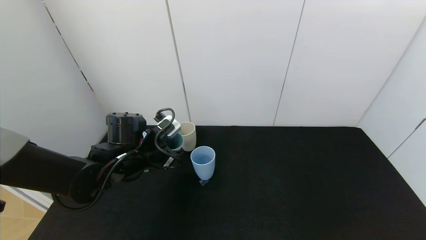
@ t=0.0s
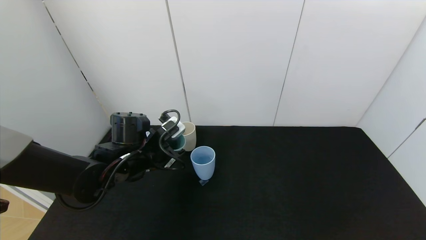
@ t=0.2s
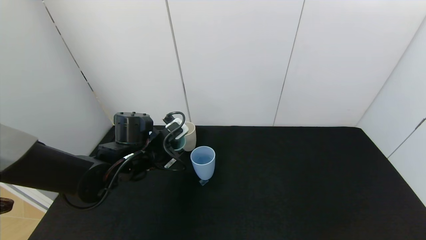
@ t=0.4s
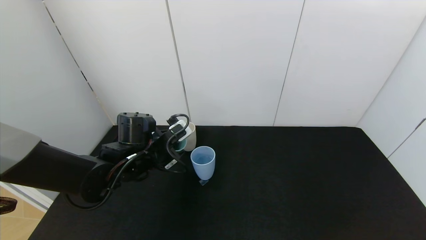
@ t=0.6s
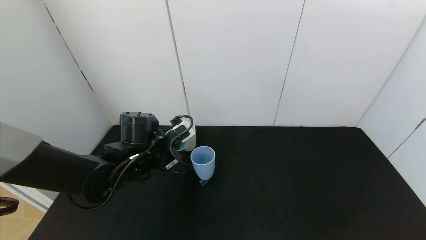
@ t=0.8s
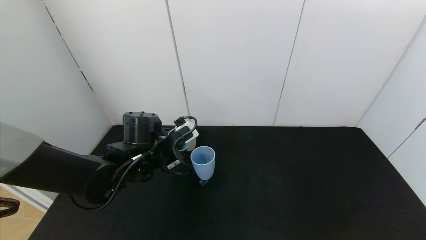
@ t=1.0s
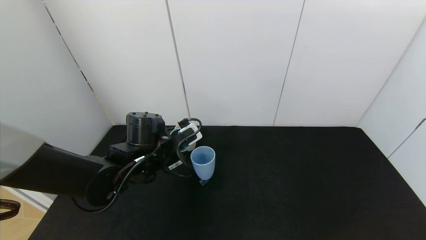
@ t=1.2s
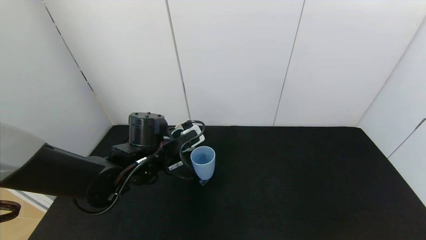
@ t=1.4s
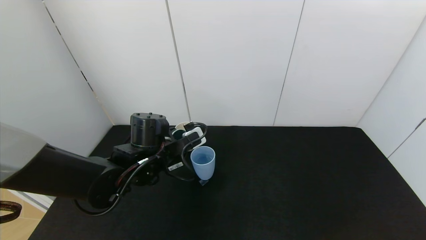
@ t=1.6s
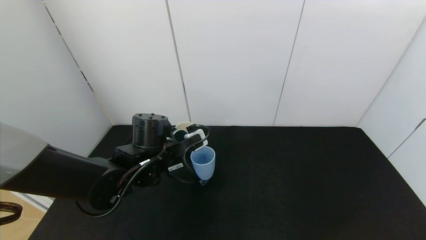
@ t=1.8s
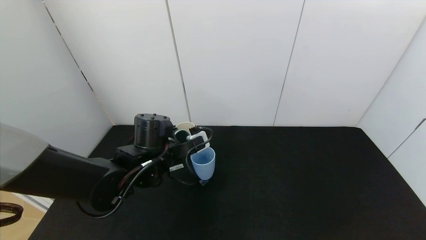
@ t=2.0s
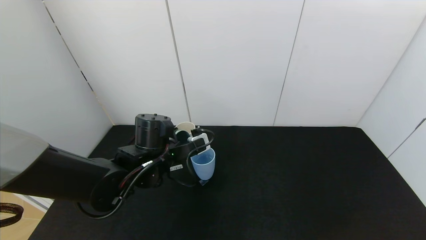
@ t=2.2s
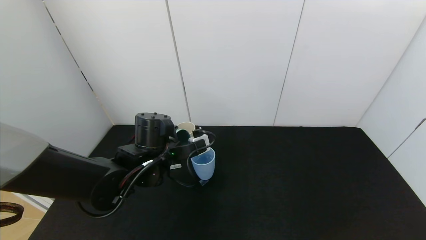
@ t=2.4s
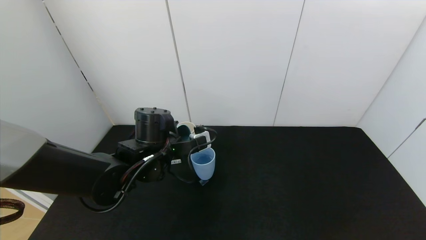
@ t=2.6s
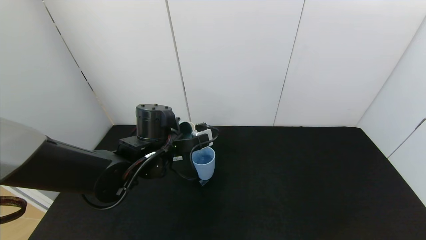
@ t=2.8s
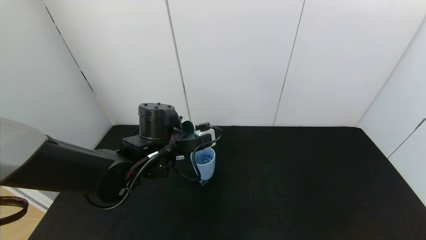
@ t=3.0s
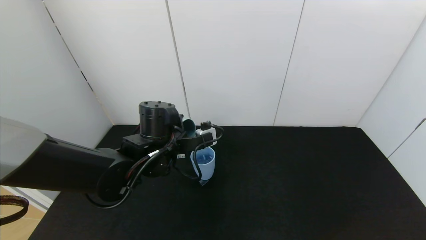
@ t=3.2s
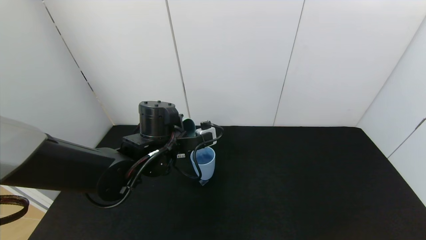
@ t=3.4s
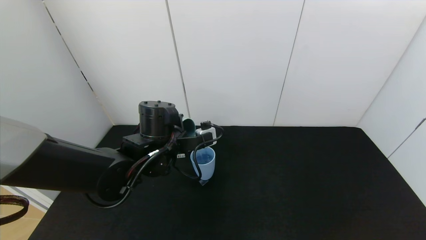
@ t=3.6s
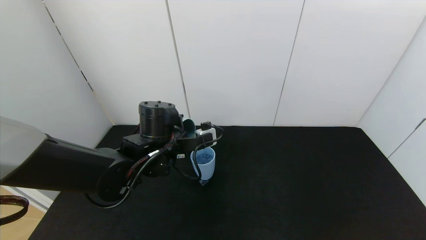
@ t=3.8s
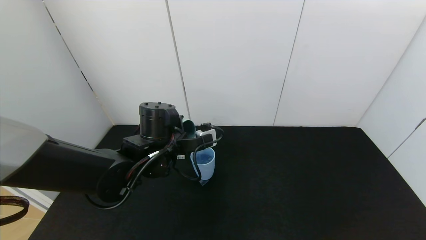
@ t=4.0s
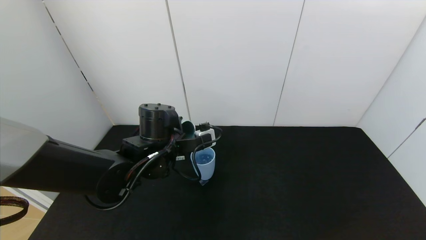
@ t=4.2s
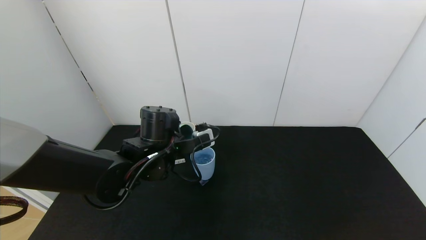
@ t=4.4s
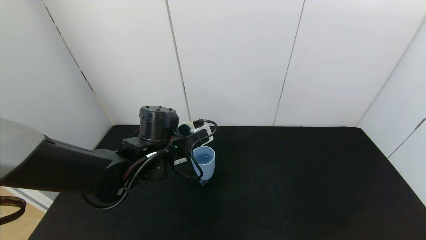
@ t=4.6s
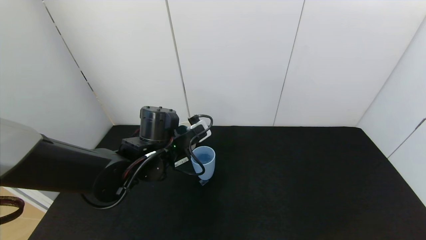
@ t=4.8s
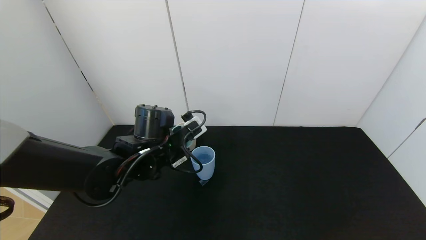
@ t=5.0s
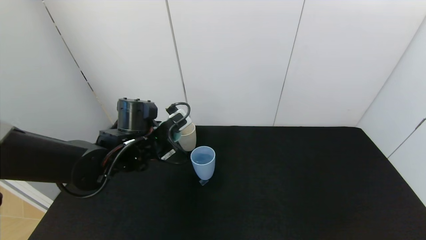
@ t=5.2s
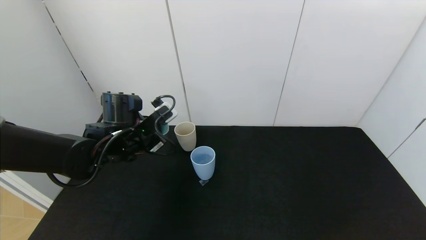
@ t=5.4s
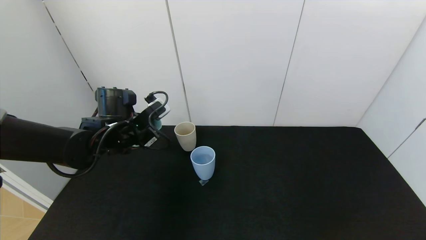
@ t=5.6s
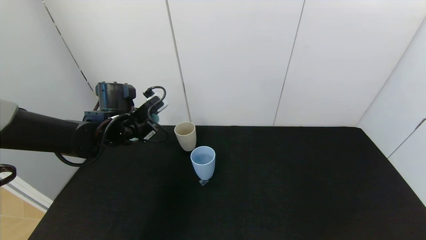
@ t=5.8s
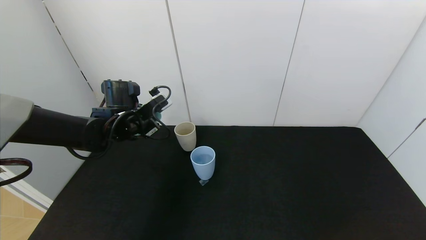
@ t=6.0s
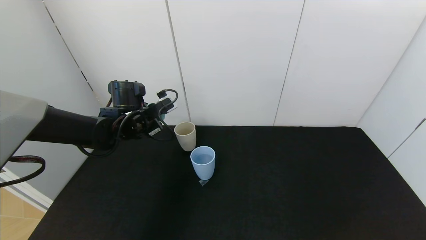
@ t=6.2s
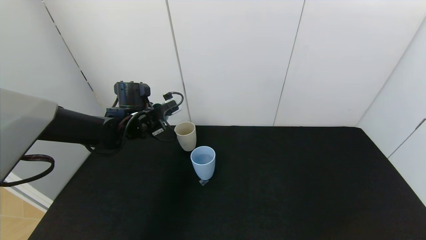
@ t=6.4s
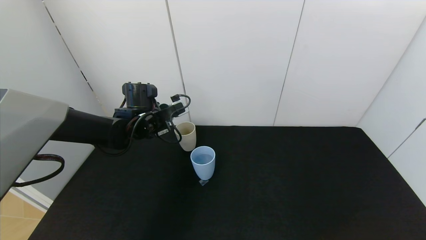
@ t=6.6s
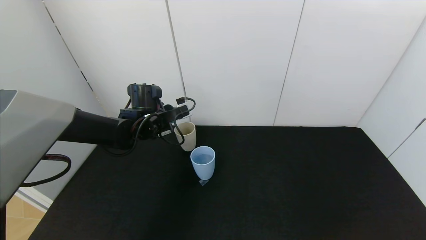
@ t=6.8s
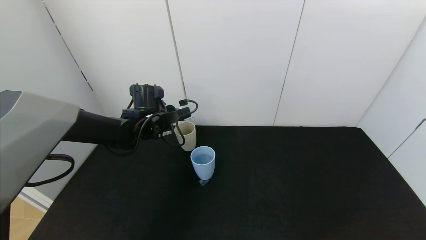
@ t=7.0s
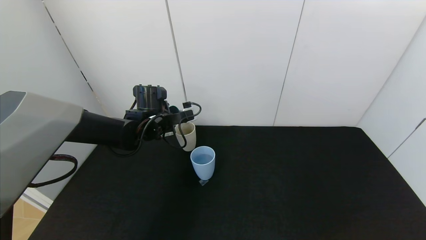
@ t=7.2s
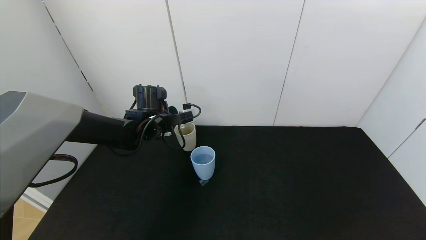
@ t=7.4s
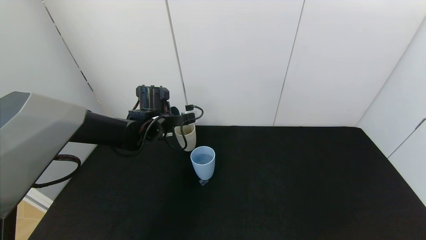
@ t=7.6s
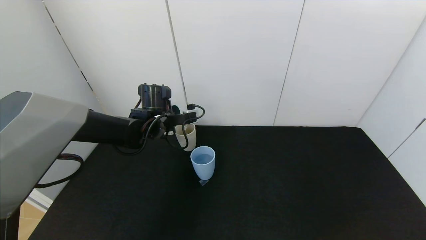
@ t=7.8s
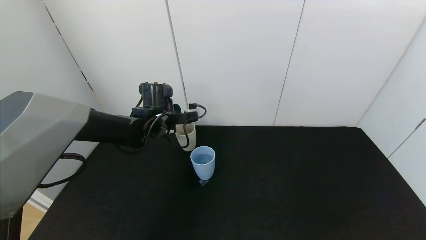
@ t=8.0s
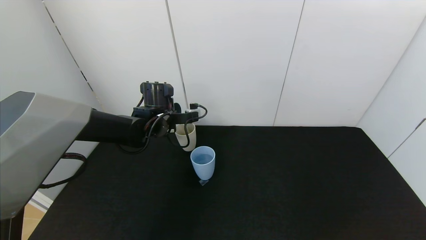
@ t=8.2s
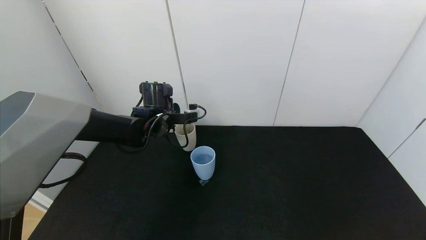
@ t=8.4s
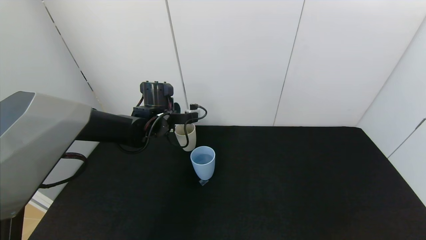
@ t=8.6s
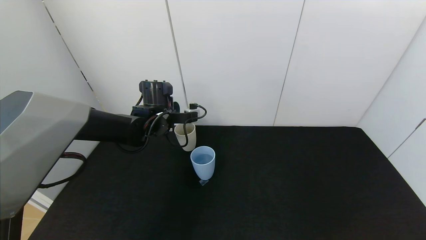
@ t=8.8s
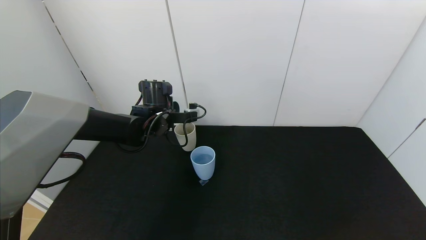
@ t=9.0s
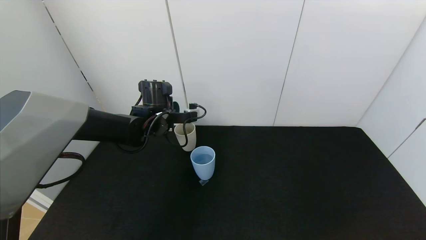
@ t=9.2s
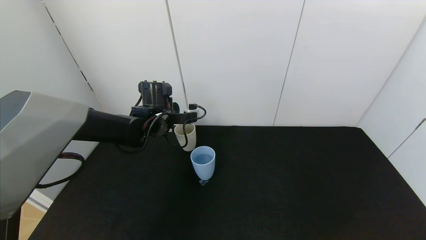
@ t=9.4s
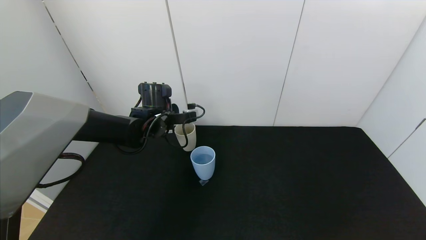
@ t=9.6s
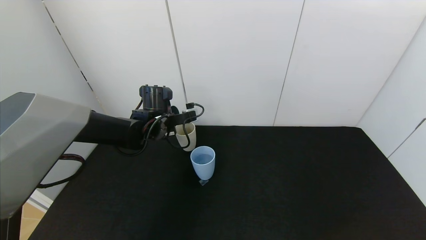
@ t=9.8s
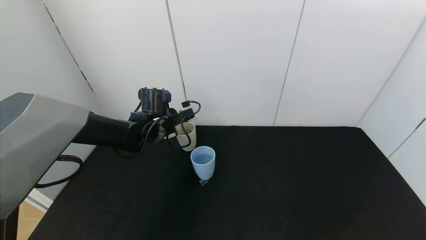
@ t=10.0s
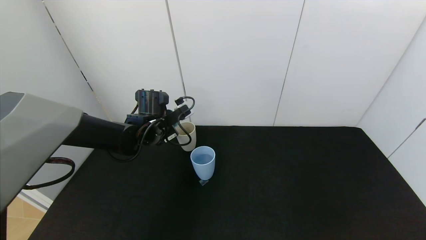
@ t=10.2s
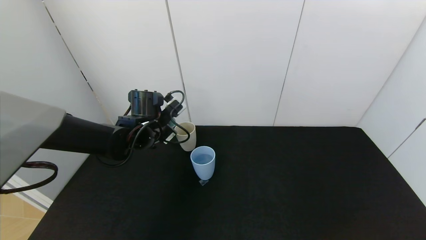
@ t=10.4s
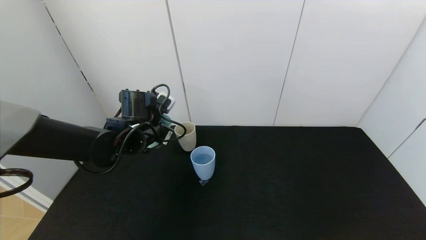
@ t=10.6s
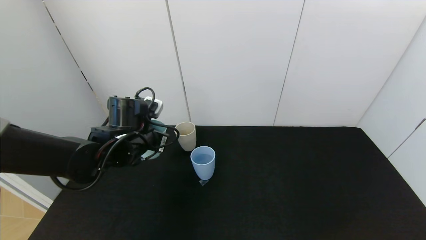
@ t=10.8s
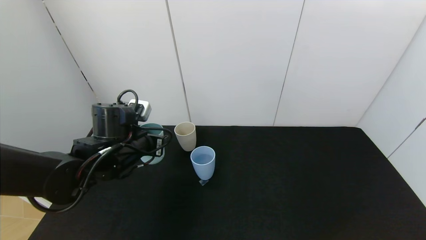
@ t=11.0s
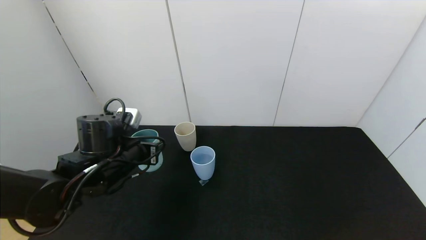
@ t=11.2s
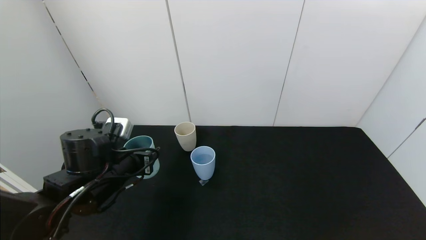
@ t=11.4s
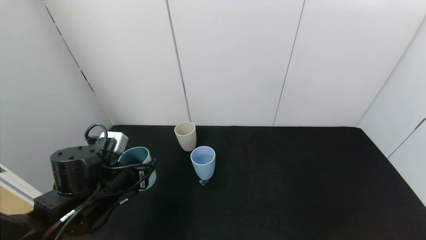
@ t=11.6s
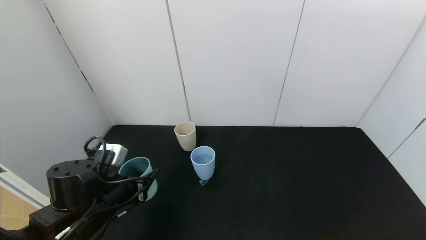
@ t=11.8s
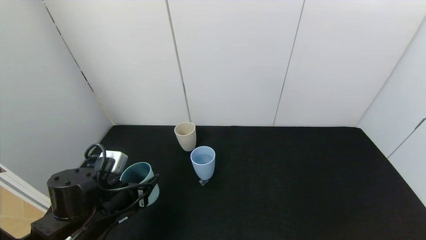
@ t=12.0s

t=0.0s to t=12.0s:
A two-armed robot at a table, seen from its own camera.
Task of the whole recording: use the gripper to pour the water into the other two cups on black table.
Step, t=0.0s to t=5.2s: Pour water into the blue plastic cup with left gripper.
Step, t=5.4s to t=10.4s: Pour water into the gray plastic cup with left gripper.
t=1.6s to t=3.0s: There are only small adjustments of the grippers.
t=3.0s to t=4.4s: The grippers stay close to where they were, moving slightly.
t=4.4s to t=6.0s: The left gripper shifts roughly 15 cm to the left and forward.
t=6.0s to t=7.6s: The left gripper changes place by about 5 cm.
t=7.6s to t=9.0s: The grippers make only small movements.
t=10.4s to t=12.0s: The left gripper goes approximately 20 cm backward and downward.

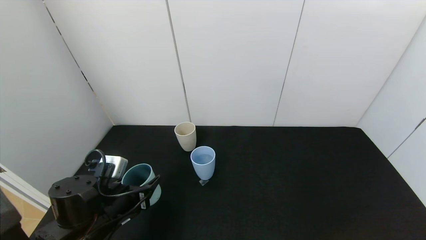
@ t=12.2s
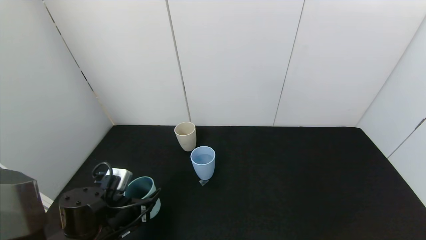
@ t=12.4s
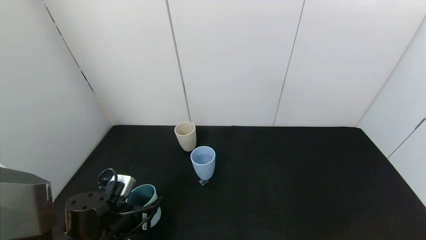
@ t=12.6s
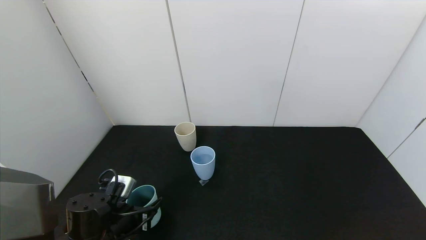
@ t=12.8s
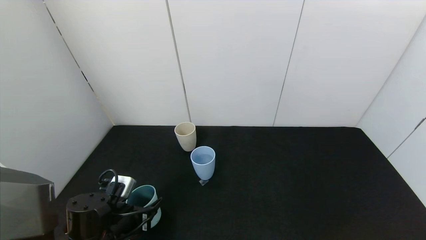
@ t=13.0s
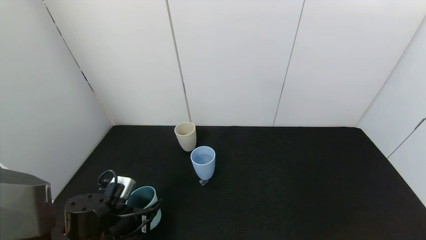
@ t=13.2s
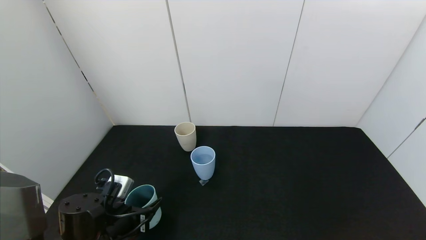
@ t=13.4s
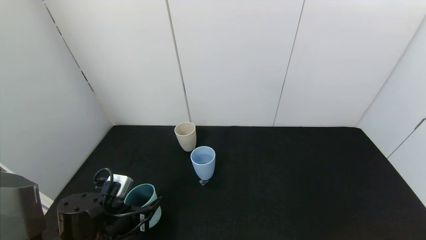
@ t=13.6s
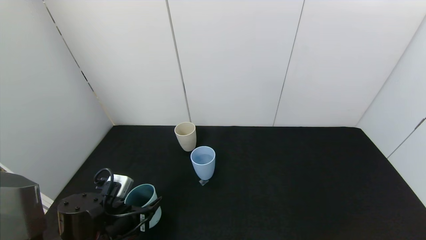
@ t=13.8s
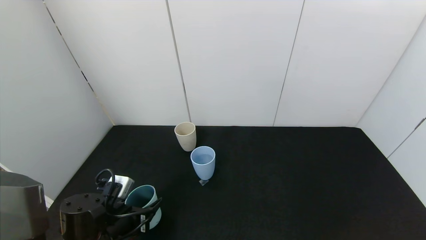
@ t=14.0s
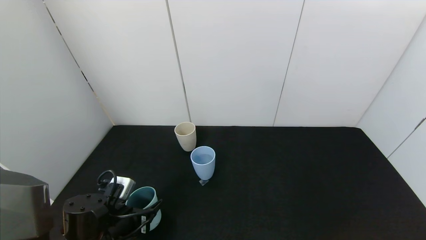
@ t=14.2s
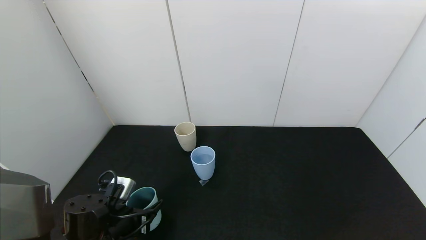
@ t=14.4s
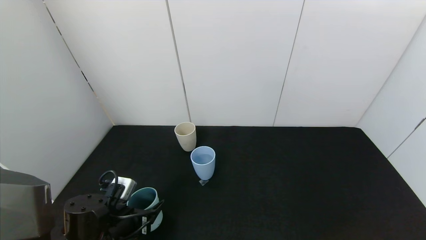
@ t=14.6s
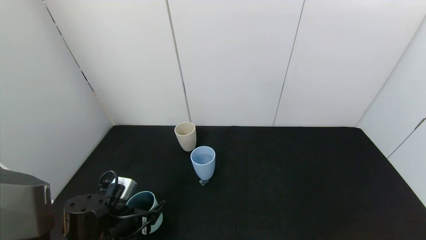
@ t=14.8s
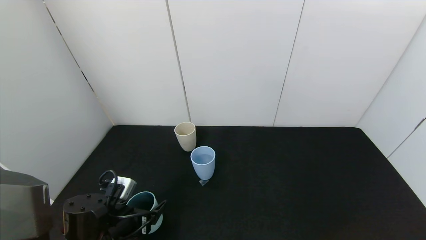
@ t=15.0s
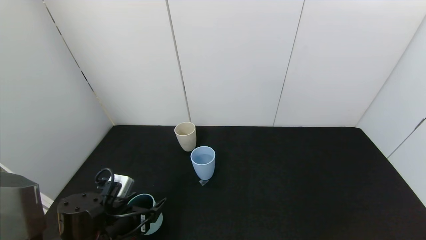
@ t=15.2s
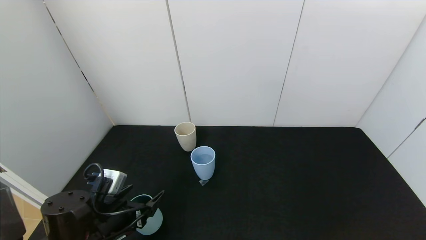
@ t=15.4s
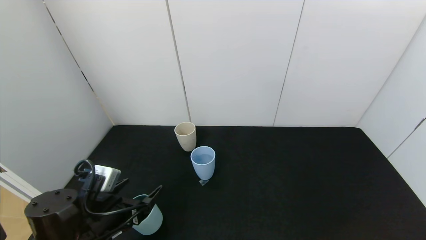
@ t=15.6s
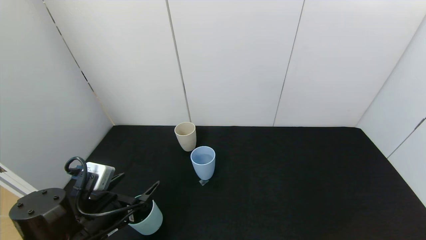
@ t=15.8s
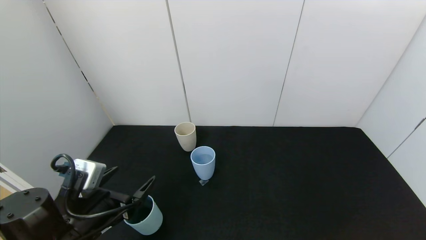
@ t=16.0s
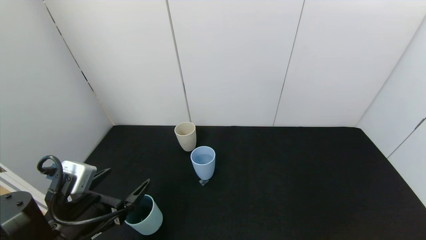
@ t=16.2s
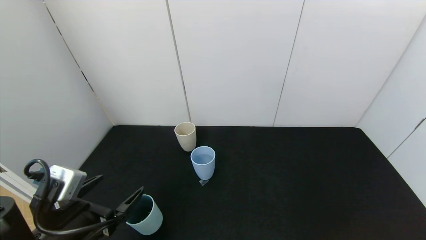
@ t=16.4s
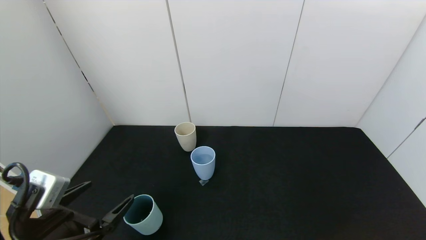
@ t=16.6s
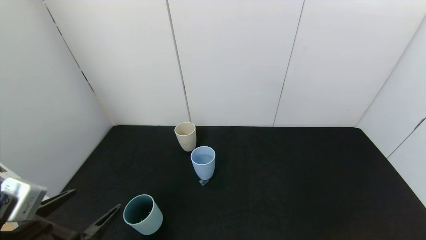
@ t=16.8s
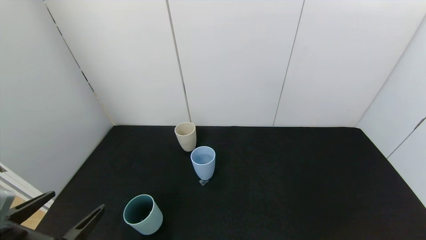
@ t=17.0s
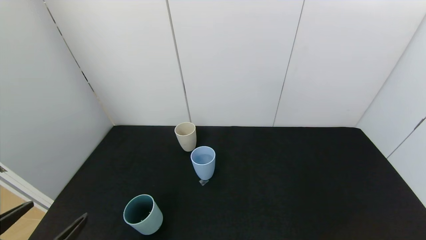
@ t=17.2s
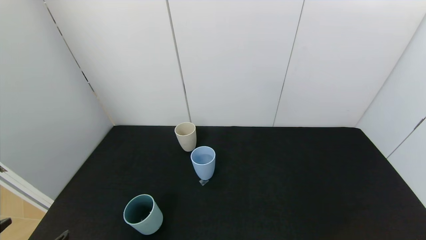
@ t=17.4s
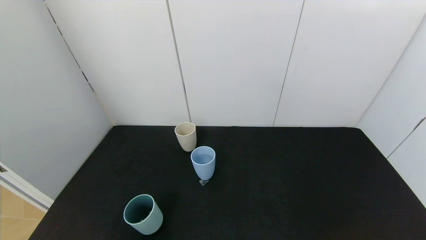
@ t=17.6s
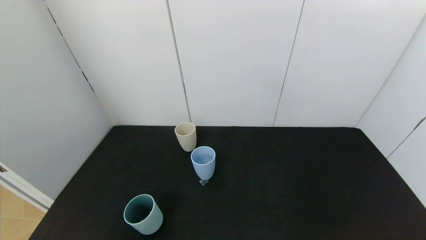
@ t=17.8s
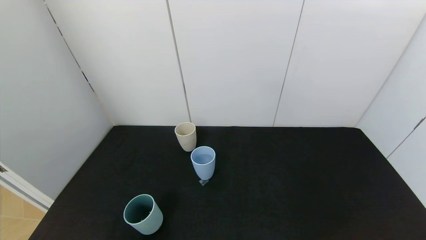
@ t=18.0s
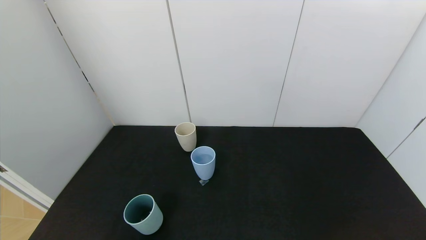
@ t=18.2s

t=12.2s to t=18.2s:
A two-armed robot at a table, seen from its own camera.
Task of the whole recording: use the gripper to pour the water into the other two cups on black table.
Step, t=12.2s to t=15.4s: Place the green plastic cup on the table with left gripper.
t=12.2s to t=13.8s: The grippers move only a little.
t=13.8s to t=15.2s: The left gripper opens up.
t=15.2s to t=16.6s: The left gripper heads upward and backward, covering about 10 cm.
t=16.6s to t=18.2s: The left gripper heads backward, covering roughly 15 cm.
